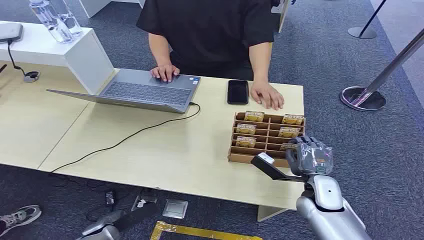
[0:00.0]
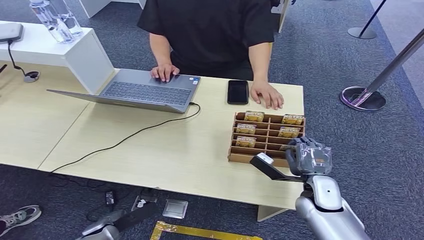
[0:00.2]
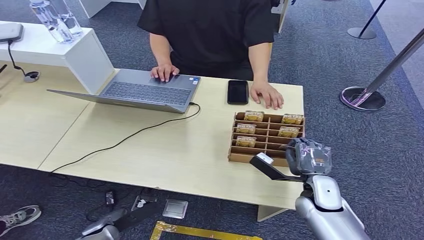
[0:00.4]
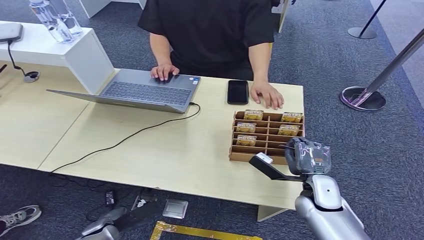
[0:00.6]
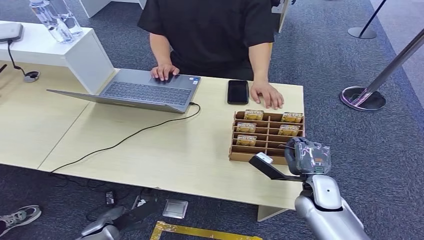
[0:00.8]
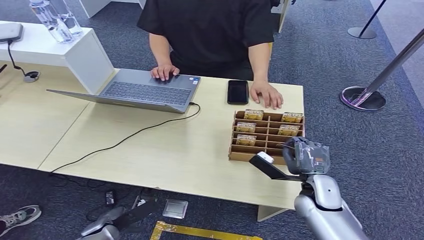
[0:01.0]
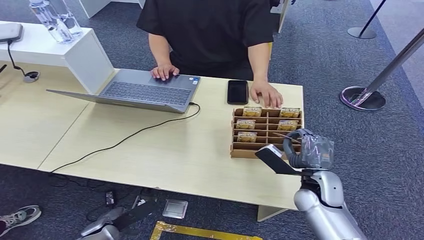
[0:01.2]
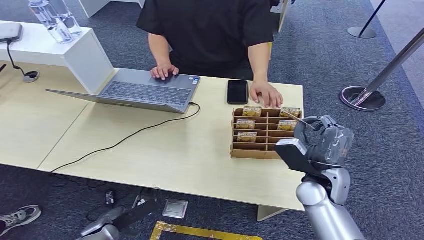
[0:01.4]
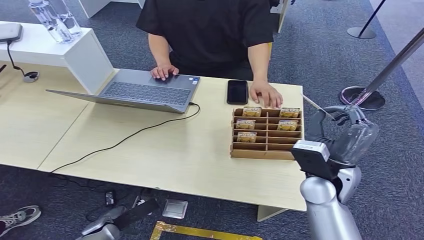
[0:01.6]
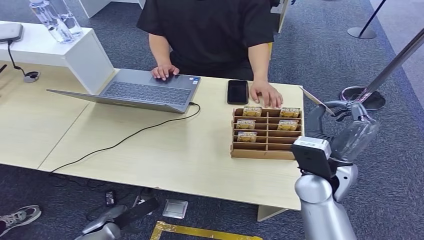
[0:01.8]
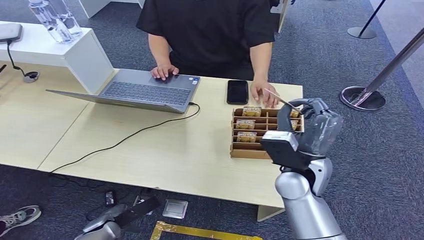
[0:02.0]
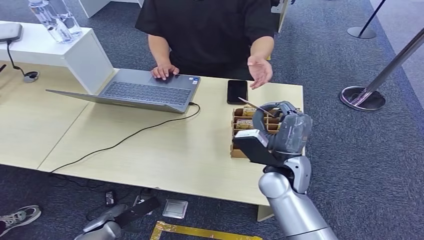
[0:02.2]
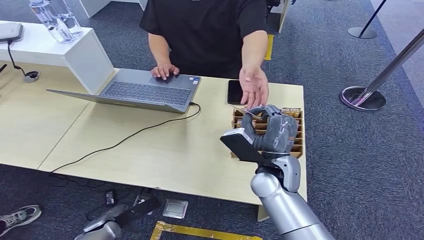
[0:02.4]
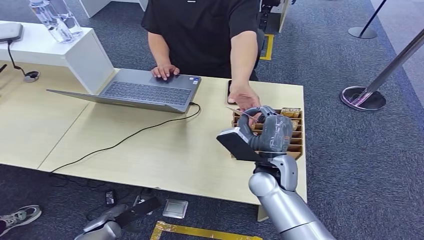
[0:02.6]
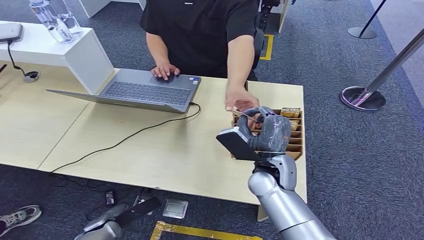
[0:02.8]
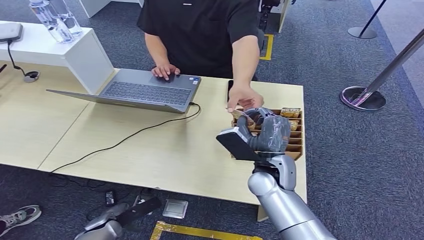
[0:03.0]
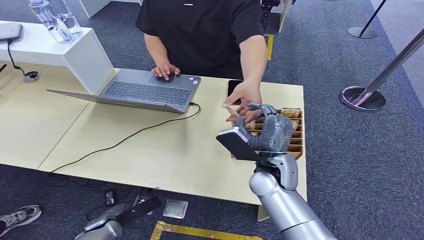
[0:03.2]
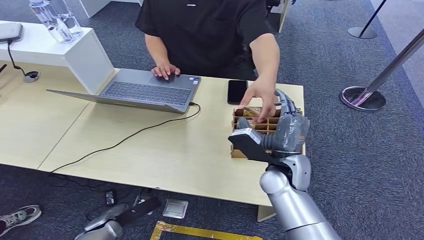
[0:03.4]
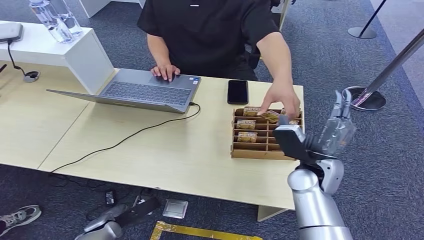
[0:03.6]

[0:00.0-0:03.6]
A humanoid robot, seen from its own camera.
Step, 0:00.0 to 0:01.6: Pick up the key card from the card box.
Step, 0:01.8 to 0:03.6: Hand the key card to the target.

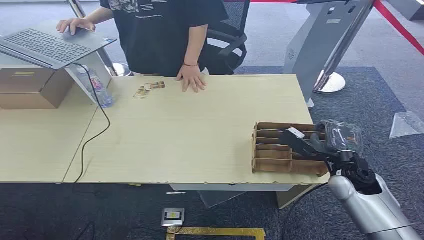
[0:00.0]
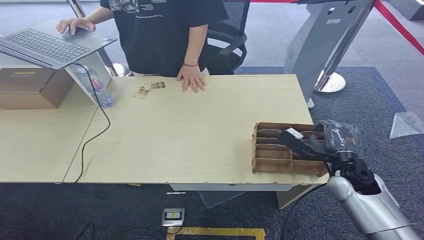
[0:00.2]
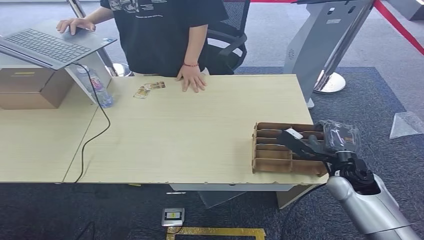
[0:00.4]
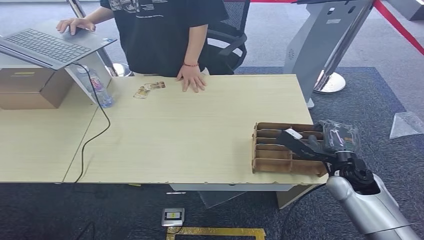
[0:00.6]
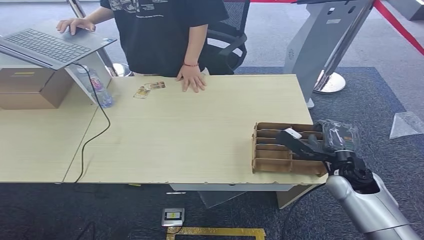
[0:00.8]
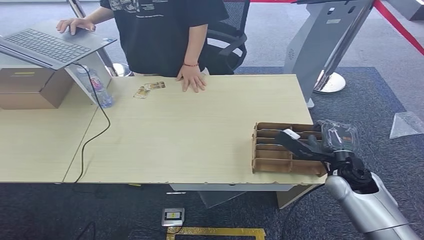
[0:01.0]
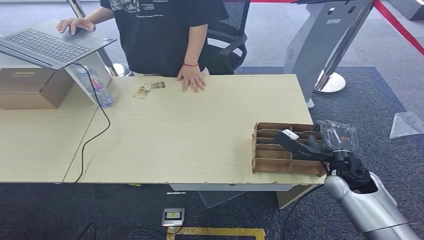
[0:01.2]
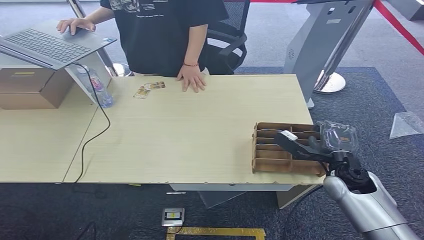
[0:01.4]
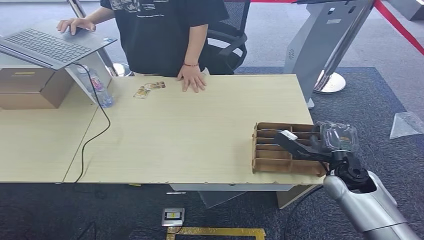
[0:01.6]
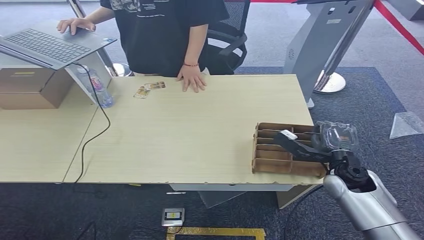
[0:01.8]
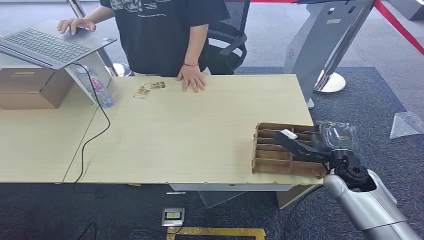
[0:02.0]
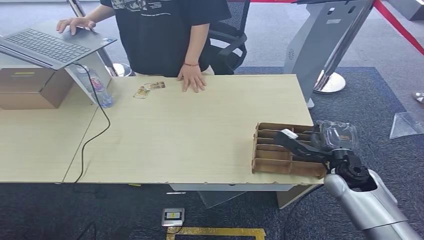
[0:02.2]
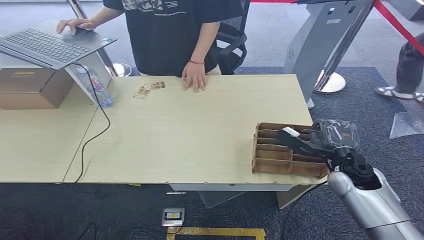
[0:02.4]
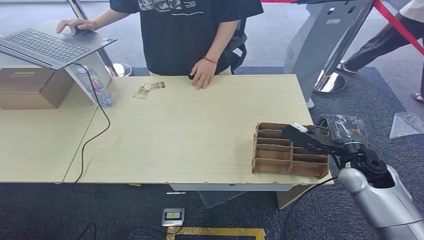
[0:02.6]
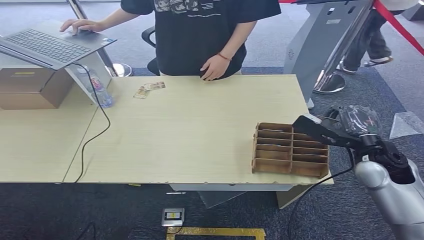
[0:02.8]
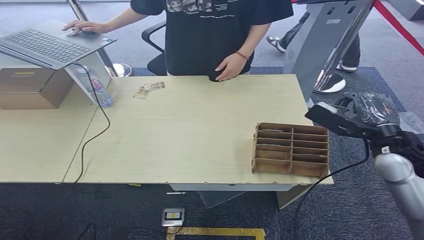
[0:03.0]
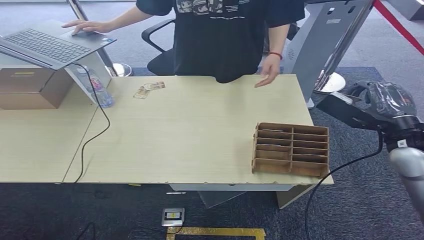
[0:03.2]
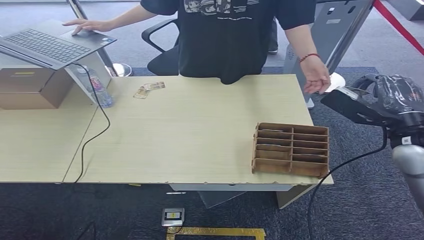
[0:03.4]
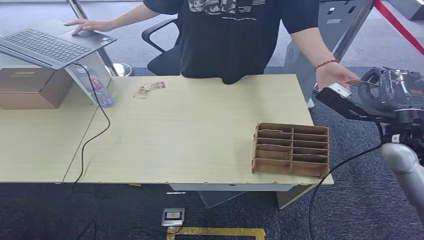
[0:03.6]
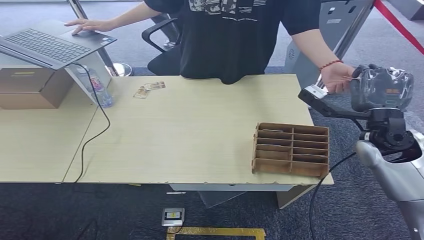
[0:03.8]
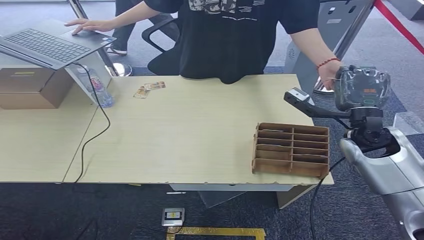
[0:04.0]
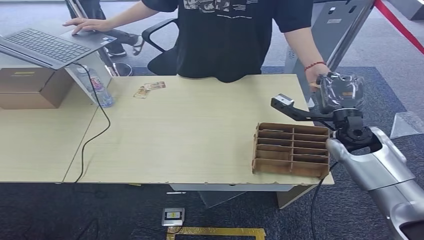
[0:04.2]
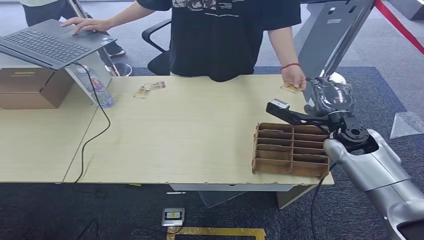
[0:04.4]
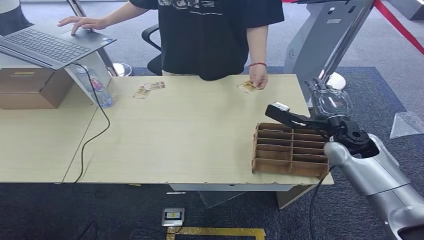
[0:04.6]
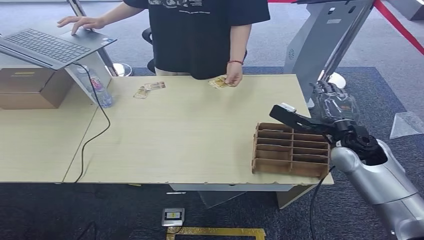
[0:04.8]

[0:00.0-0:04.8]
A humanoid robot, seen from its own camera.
Step, 0:00.0 to 0:03.2: Pick up the key card from the card box.
Step, 0:03.4 to 0:04.8: Hand the key card to the target.
0:03.2 to 0:04.8: The right hand is displaced to the left and downward by approximately 10 cm.
